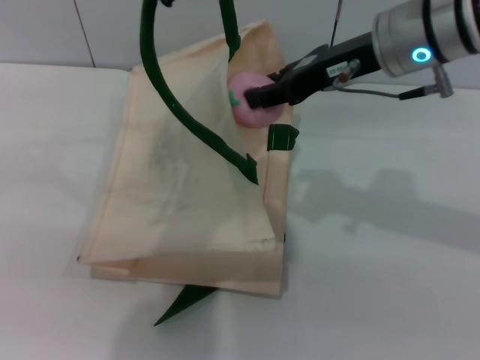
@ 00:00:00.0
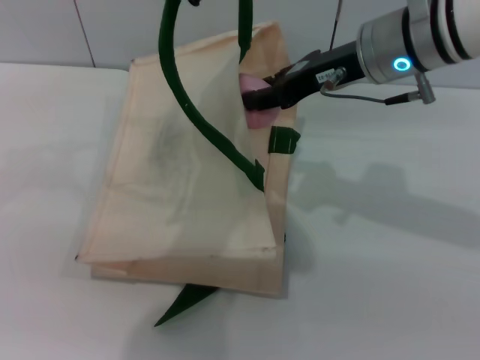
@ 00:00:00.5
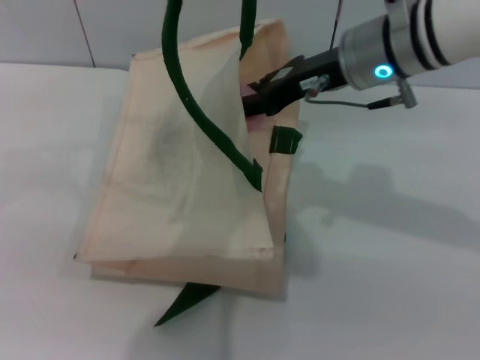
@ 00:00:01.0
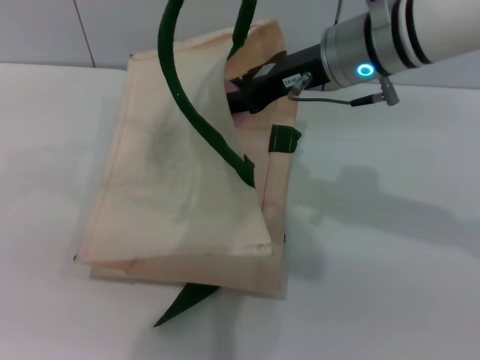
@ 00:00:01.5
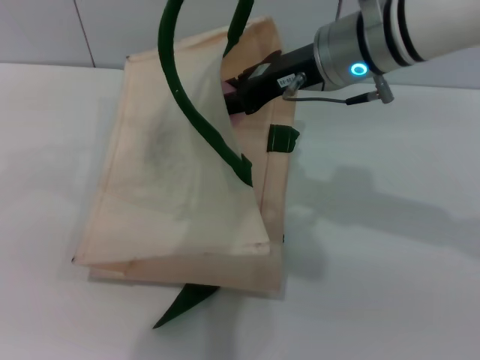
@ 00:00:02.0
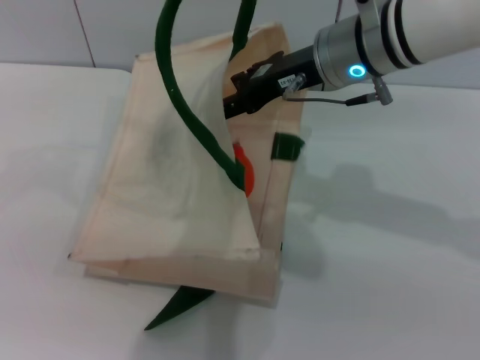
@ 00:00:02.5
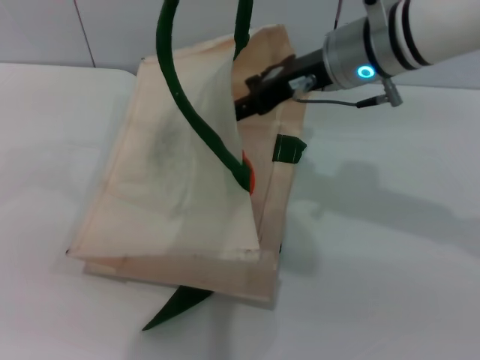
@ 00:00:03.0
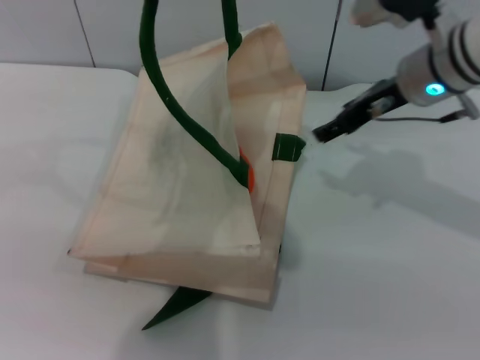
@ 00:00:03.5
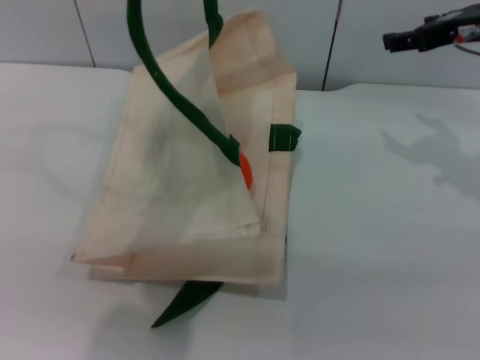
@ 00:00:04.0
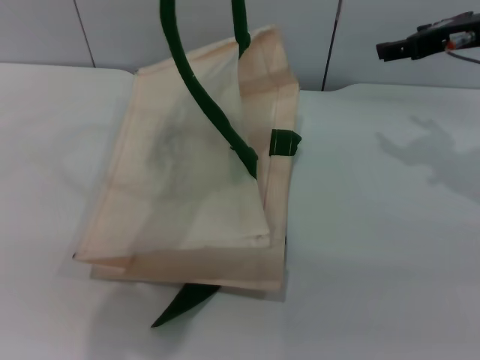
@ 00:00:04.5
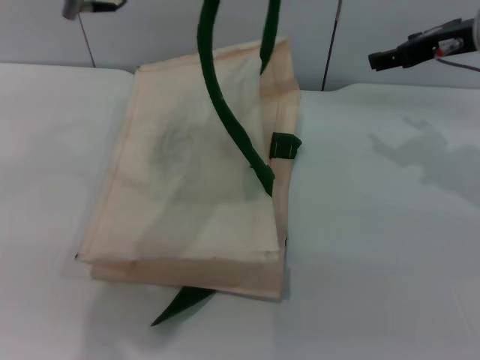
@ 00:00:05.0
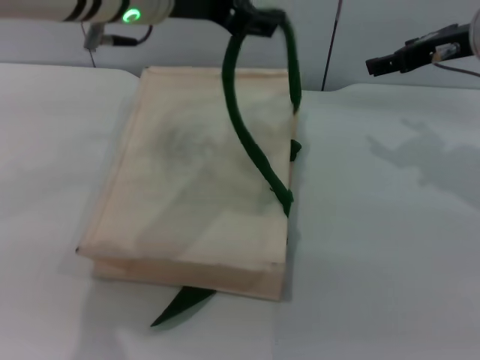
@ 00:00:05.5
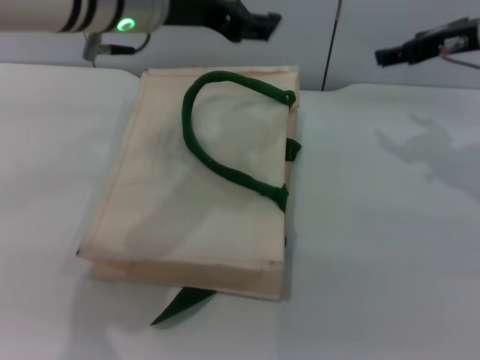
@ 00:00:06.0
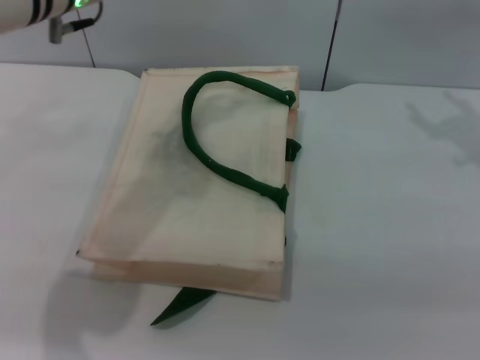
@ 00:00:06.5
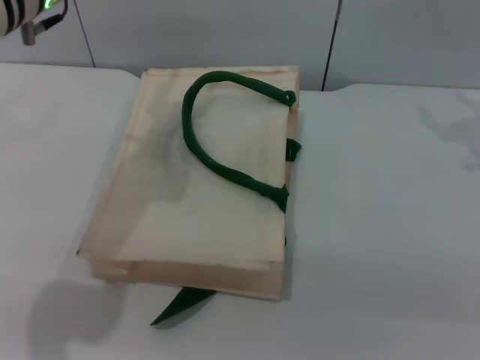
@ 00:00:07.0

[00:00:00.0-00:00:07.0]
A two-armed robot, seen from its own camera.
Task of the whole recording: pick up the orange and peach from the table and place it in the white handbag.
Step, 00:00:00.0 to 00:00:02.5: Place the peach into the woven bag with the right gripper.
Step, 00:00:03.0 to 00:00:06.0: Lower the woven bag with the left gripper to close it.
00:00:00.0 to 00:00:02.0: There are only small adjustments of the grippers.
00:00:02.0 to 00:00:03.5: The right gripper travels to the right by some 10 cm, and opens its fingers.
00:00:03.5 to 00:00:05.0: The left gripper opens; the right gripper moves to the right, about 5 cm.
00:00:05.0 to 00:00:07.0: The left gripper heads to the left and downward, covering approximately 10 cm, while the right gripper goes some 5 cm to the right.
